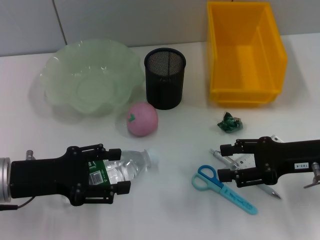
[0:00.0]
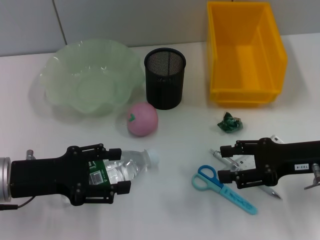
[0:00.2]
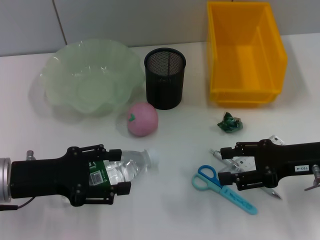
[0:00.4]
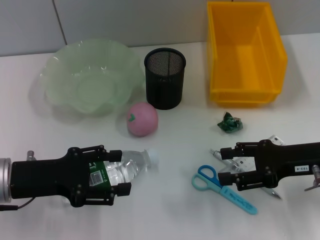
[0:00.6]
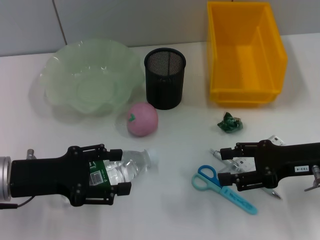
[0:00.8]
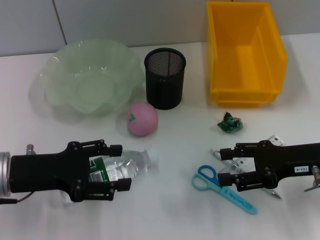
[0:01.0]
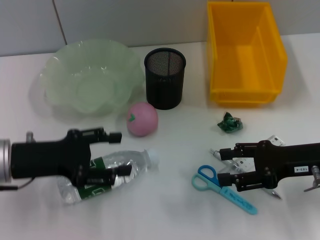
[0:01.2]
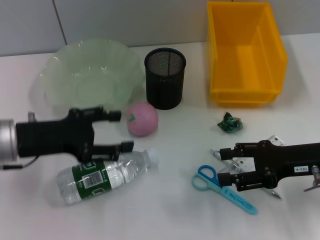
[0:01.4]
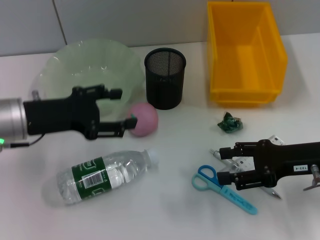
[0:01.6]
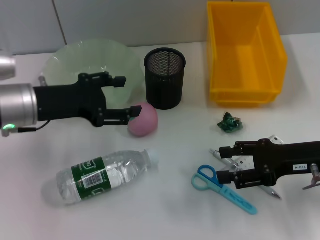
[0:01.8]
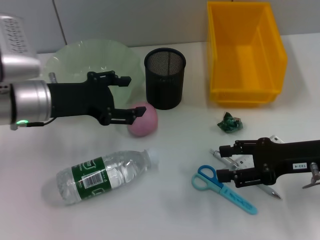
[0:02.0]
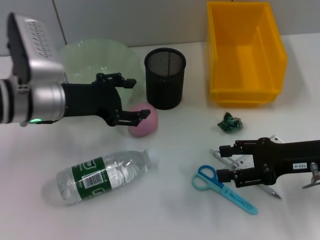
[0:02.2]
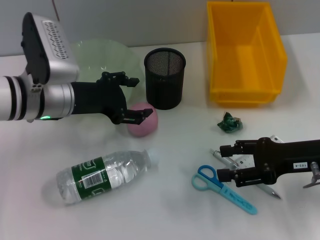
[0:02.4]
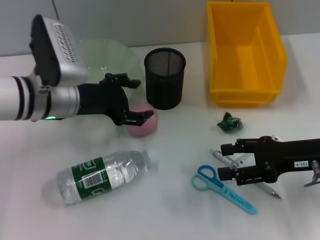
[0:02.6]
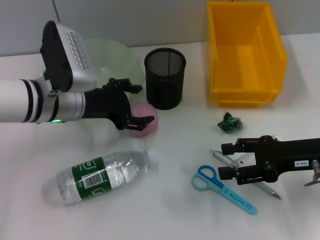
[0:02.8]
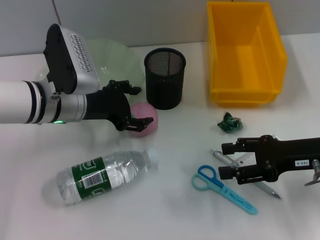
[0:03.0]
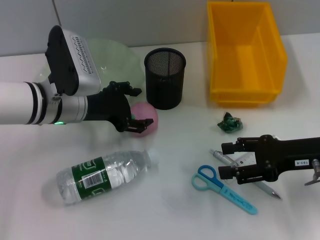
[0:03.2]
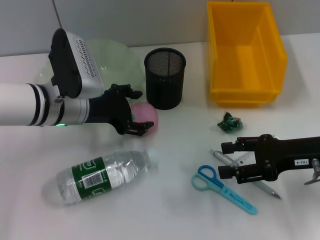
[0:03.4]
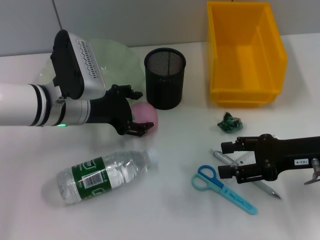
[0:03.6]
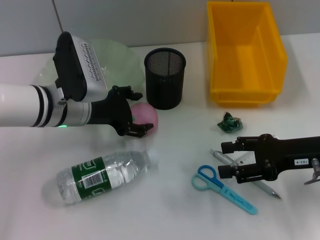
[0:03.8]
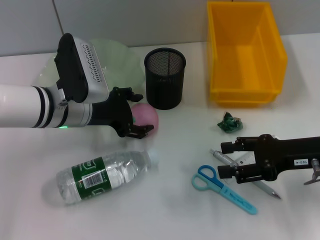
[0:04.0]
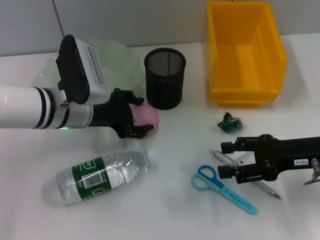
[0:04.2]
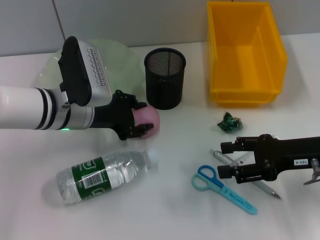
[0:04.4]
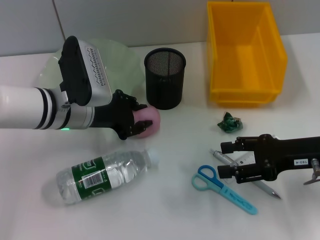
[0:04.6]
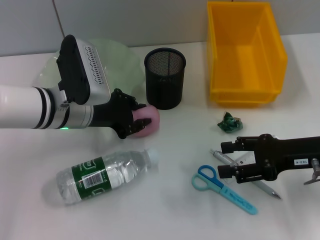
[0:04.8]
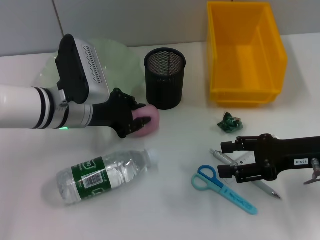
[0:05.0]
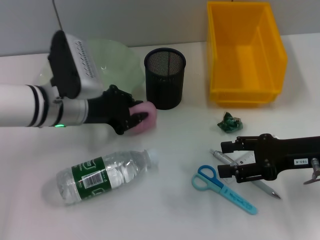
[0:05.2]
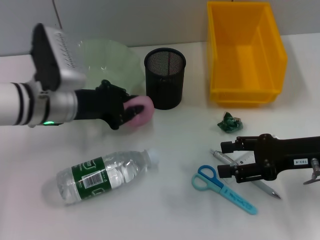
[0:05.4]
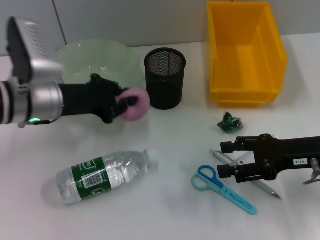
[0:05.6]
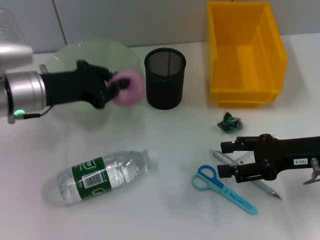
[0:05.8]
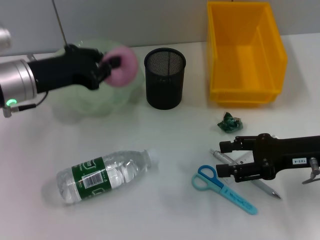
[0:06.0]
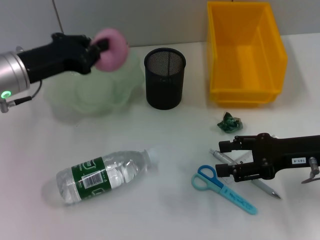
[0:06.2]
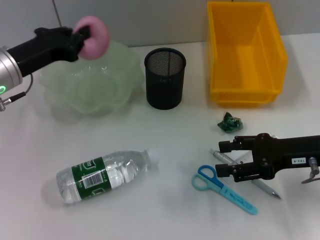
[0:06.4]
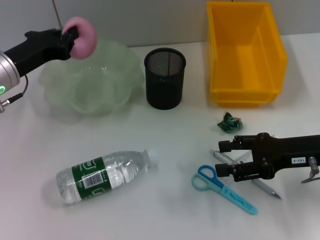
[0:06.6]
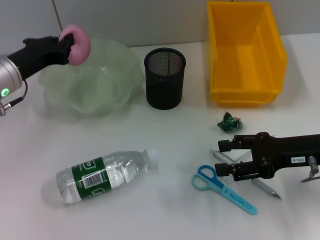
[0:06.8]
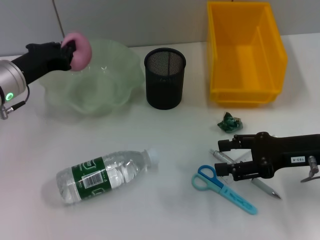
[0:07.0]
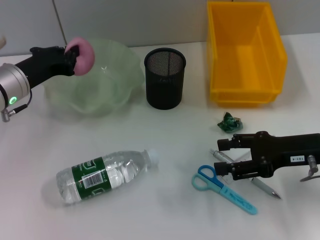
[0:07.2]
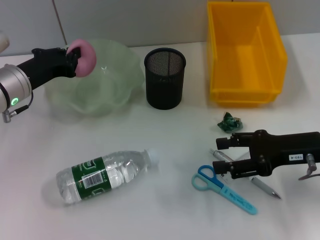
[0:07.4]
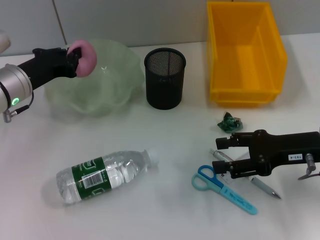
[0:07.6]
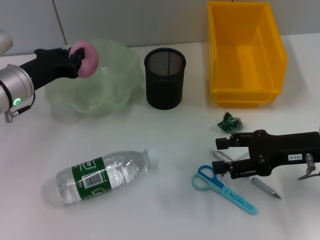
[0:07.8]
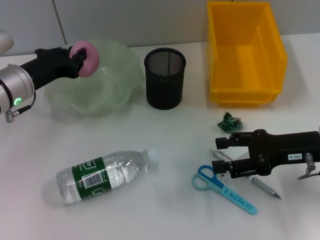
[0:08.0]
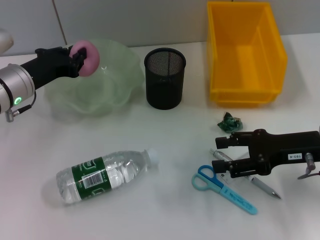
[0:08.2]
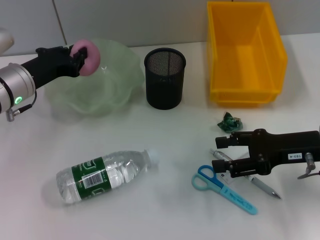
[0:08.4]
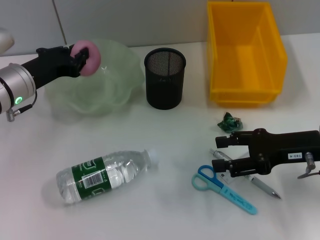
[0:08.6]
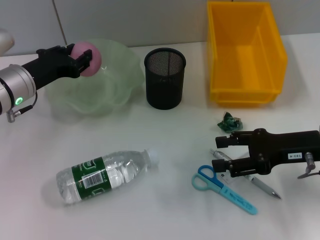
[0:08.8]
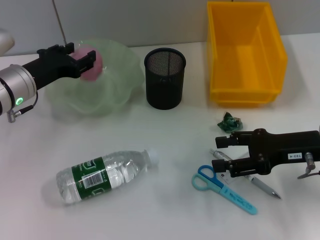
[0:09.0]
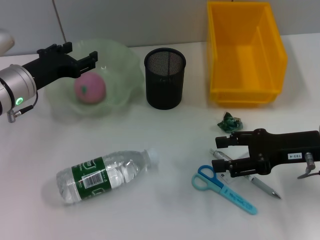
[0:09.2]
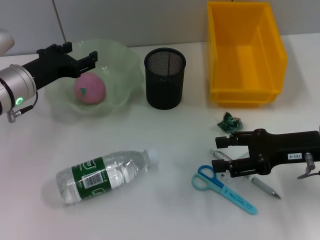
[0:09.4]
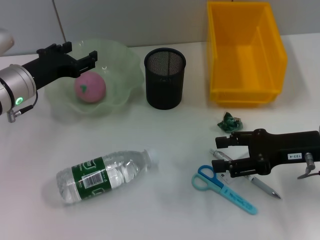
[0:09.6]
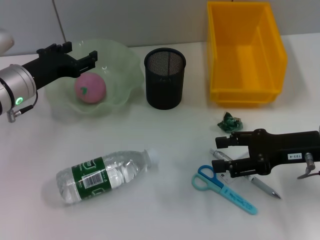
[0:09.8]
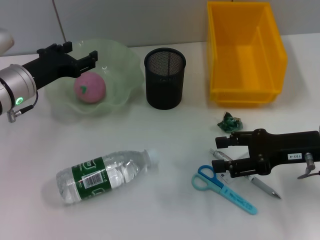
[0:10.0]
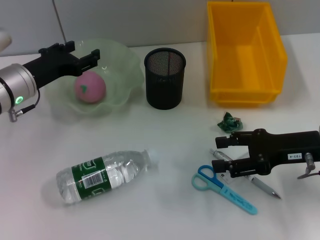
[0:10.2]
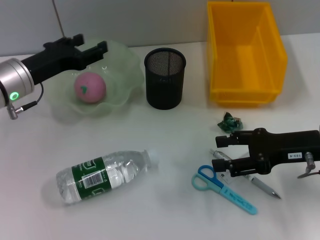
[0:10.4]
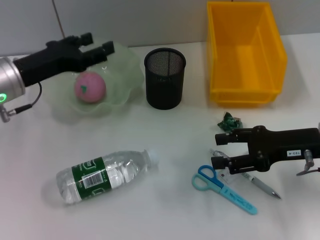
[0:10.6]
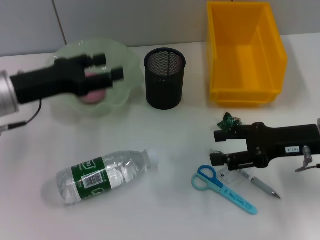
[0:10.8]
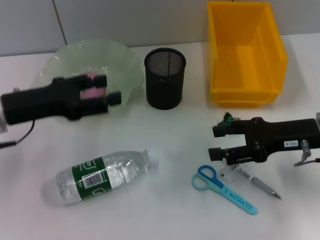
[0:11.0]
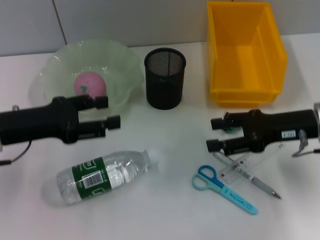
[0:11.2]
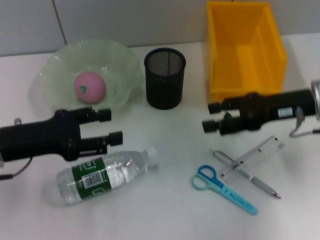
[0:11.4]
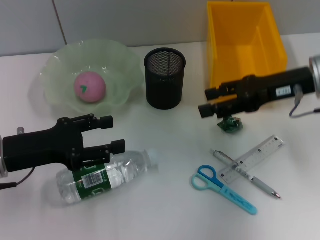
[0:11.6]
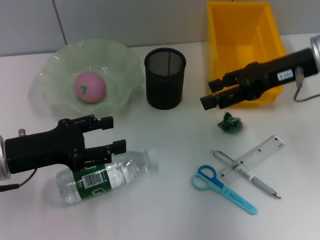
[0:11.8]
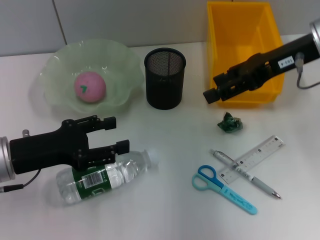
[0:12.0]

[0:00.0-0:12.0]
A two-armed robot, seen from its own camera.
Step, 0:00.0 to 0:05.2: Grab the peach with the left hand.
Step, 0:05.4 to 0:09.2: Place the peach into the fruit bowl with the left hand.
0:00.0 to 0:01.6: The left gripper heads forward, covering roughly 5 cm.
0:01.6 to 0:03.0: The left gripper is displaced to the right by about 5 cm.
0:03.0 to 0:04.4: There are only small adjustments of the grippers.
0:04.4 to 0:06.0: The left gripper shifts approximately 5 cm to the left, and closes up.
0:07.6 to 0:09.0: The left gripper opens.
0:09.0 to 0:10.4: The left gripper opens.
0:10.4 to 0:12.0: The right gripper shifts roughly 15 cm upward and forward, while the left gripper is displaced backward by about 10 cm.

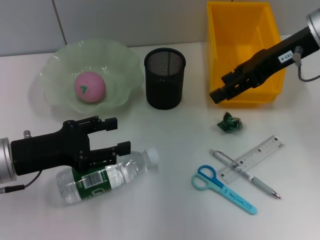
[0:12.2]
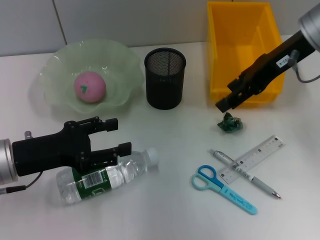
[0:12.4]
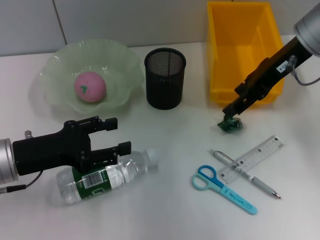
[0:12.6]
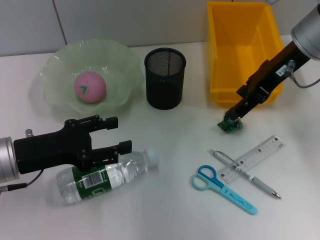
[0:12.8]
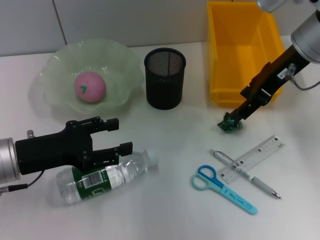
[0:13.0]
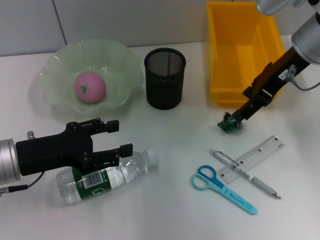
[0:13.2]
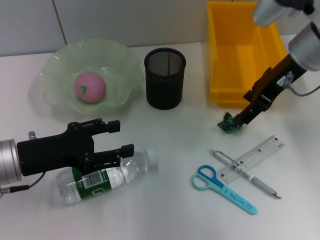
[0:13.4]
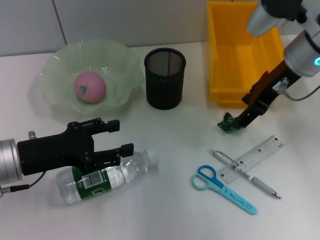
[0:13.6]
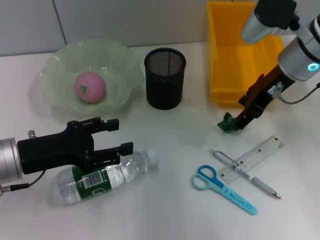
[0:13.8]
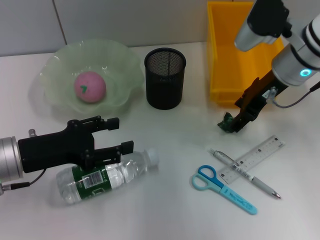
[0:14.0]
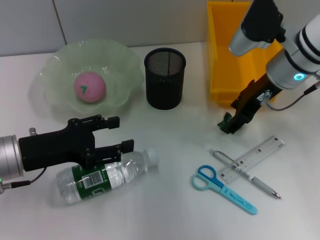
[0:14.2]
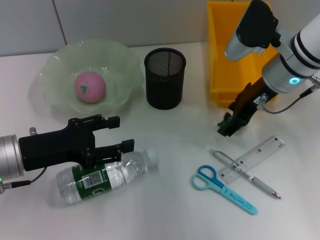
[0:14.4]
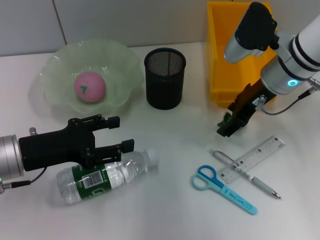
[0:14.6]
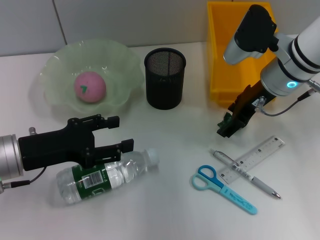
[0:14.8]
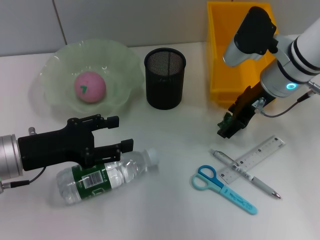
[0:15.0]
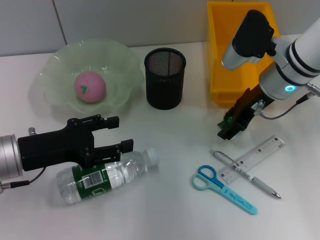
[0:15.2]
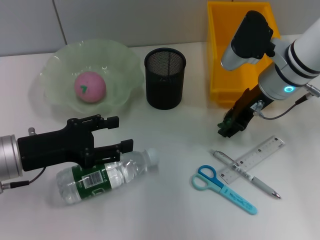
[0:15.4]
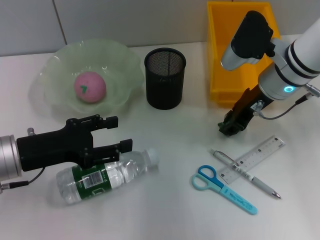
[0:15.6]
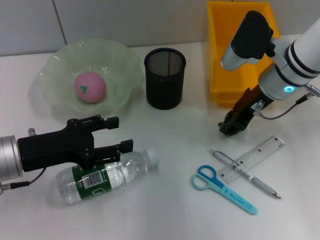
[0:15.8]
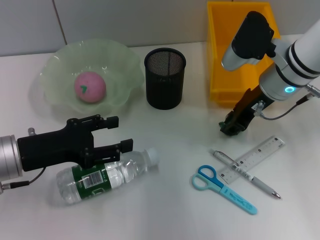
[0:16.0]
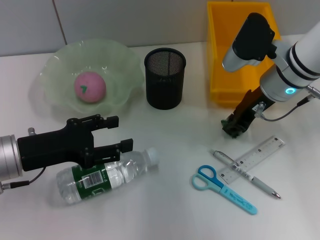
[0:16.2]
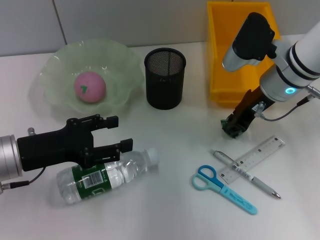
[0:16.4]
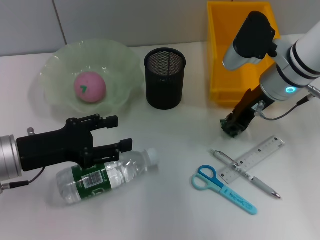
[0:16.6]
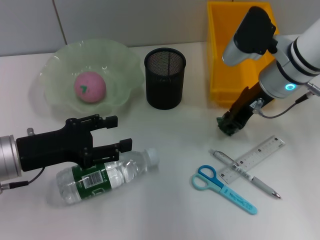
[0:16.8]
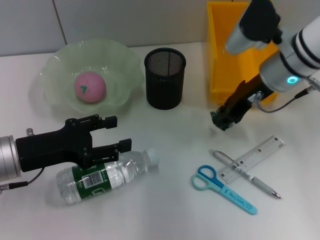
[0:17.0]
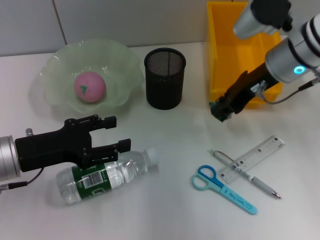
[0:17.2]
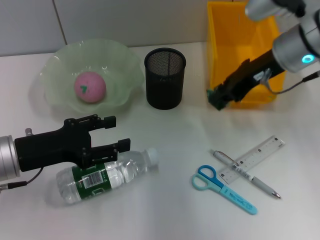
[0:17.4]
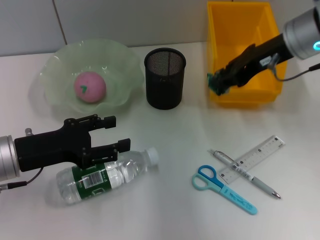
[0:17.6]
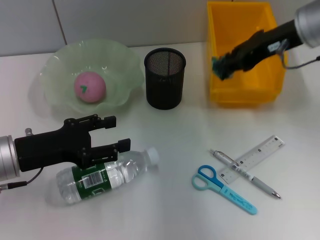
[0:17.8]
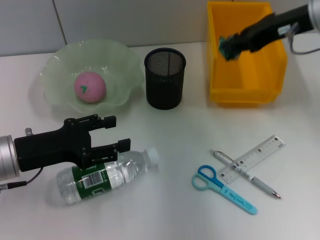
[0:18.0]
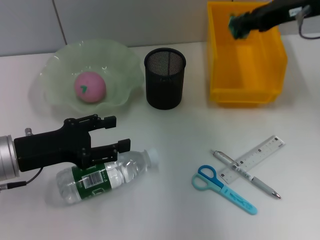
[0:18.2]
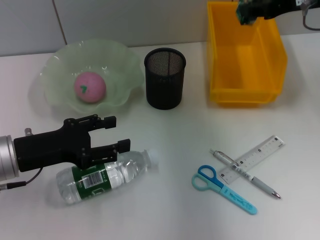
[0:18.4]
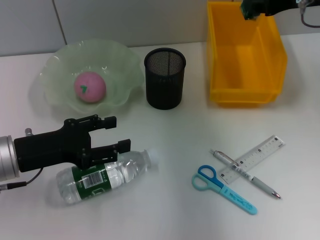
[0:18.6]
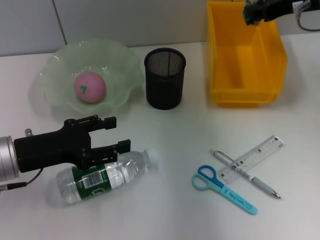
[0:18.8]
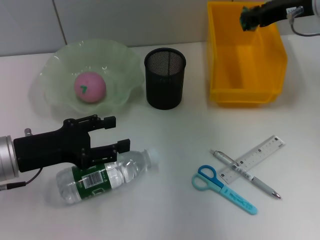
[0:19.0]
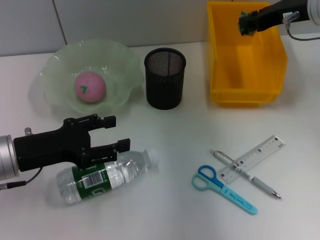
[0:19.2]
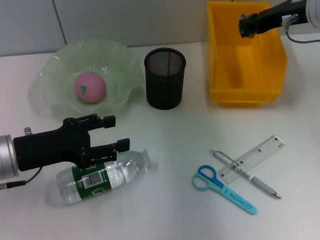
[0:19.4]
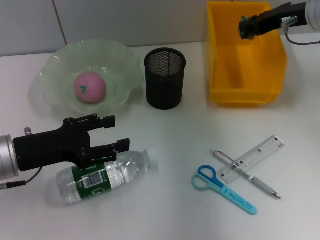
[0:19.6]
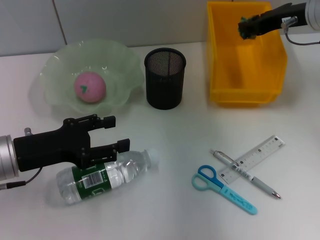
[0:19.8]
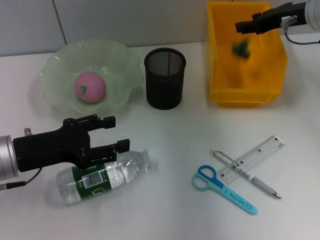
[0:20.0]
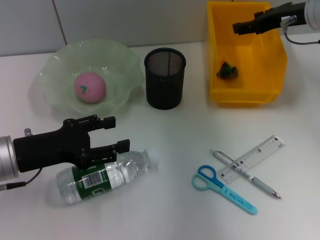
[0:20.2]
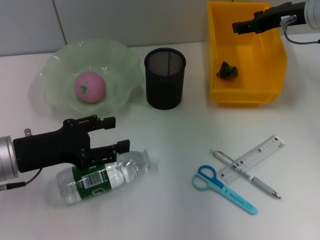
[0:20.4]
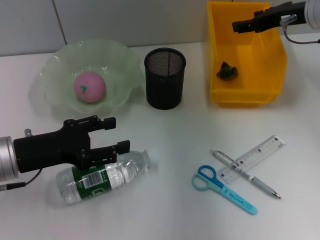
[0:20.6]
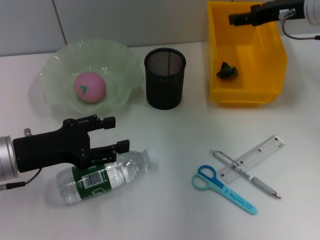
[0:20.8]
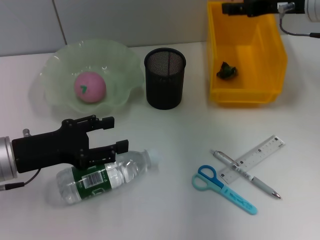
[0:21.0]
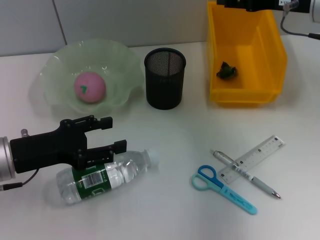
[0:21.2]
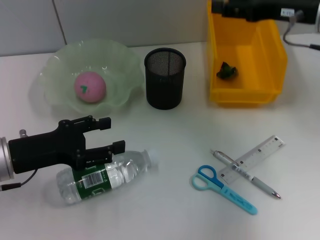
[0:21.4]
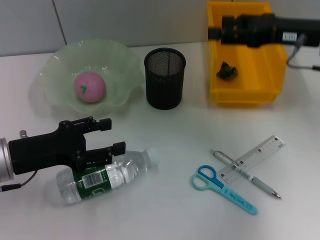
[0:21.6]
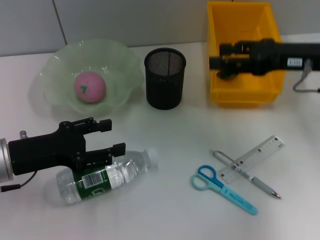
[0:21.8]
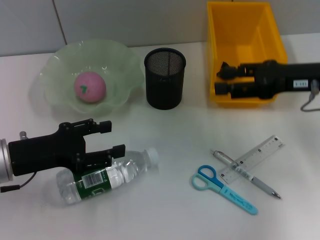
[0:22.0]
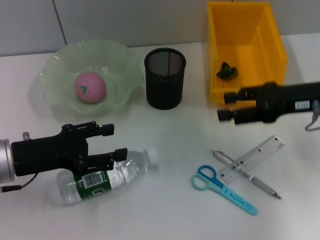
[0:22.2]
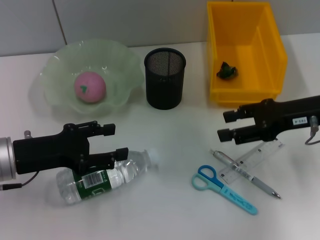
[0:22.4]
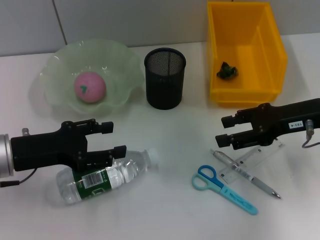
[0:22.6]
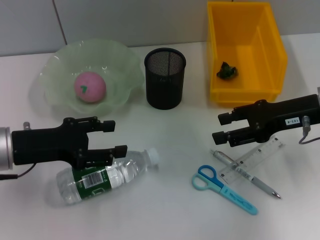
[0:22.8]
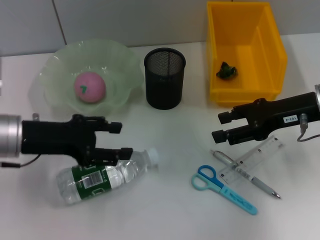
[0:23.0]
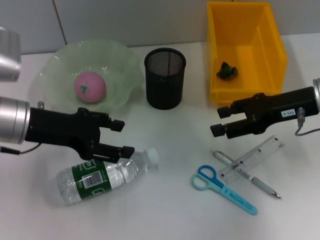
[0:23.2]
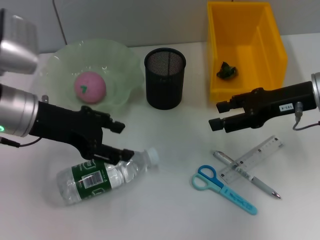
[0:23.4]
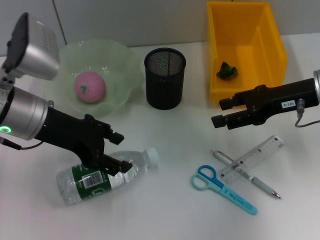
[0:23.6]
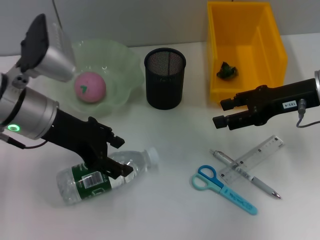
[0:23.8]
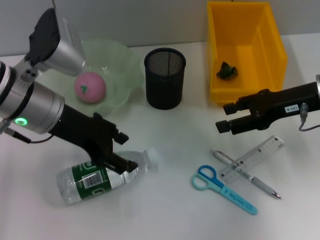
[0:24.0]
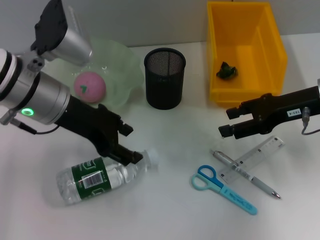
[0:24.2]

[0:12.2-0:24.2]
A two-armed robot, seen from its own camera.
Step, 0:12.2 to 0:16.2: Grab the plastic with the right hand.
Step, 0:16.4 to 0:20.2: Place the plastic into the trash can with the right hand.
0:12.2 to 0:13.8: The right gripper heads downward, covering approximately 5 cm.
0:13.8 to 0:15.2: The grippers make only small movements.
0:15.2 to 0:16.6: The right gripper closes.
0:16.6 to 0:18.2: The right gripper travels upward and to the right by some 15 cm.
0:18.2 to 0:19.8: The right gripper shifts by approximately 5 cm.
0:19.8 to 0:21.2: The right gripper opens up.
0:21.2 to 0:22.6: The right gripper shifts roughly 10 cm backward and downward.
0:22.6 to 0:24.2: The left gripper goes some 15 cm to the right, upward and forward.
